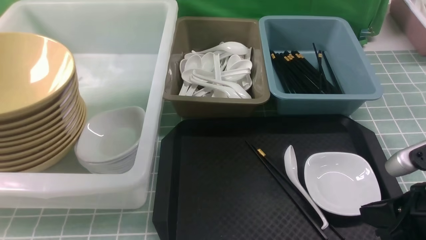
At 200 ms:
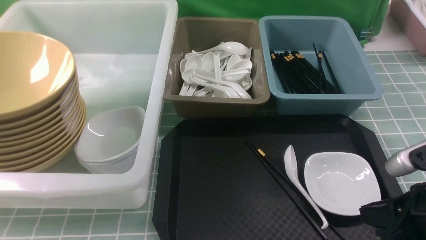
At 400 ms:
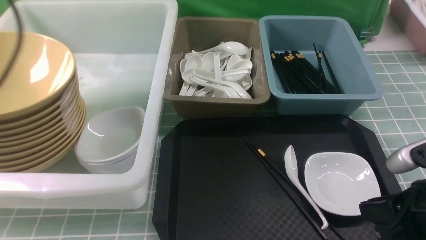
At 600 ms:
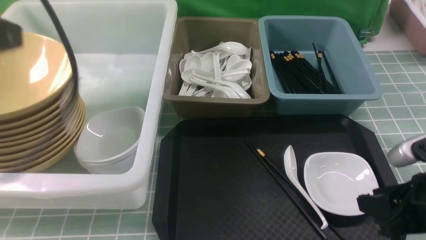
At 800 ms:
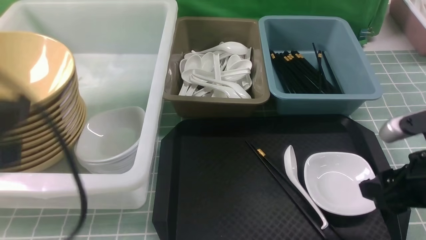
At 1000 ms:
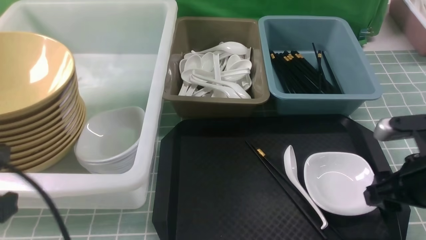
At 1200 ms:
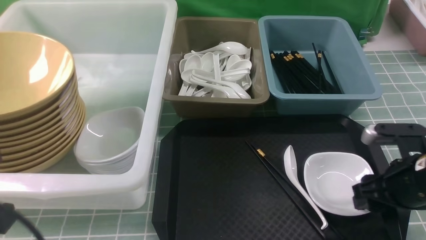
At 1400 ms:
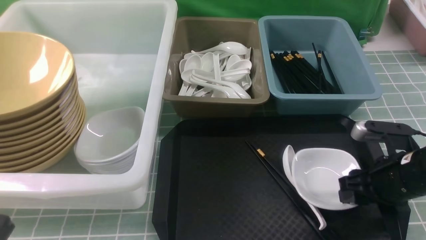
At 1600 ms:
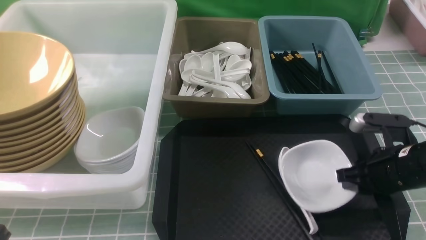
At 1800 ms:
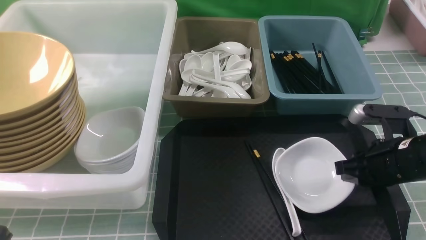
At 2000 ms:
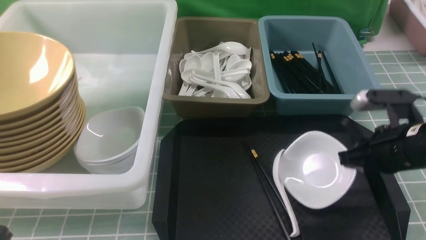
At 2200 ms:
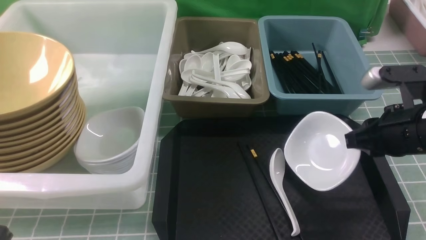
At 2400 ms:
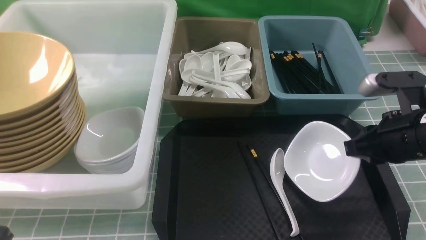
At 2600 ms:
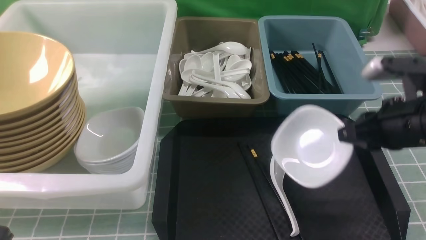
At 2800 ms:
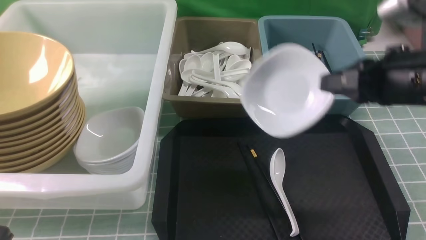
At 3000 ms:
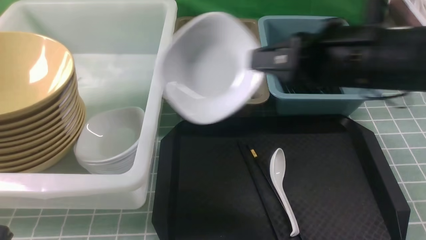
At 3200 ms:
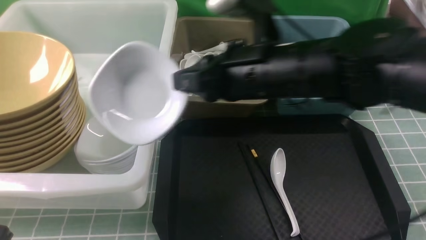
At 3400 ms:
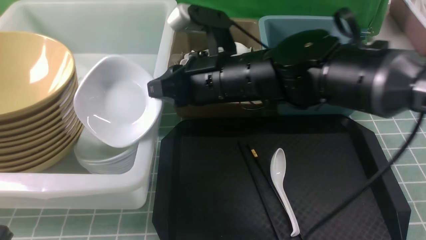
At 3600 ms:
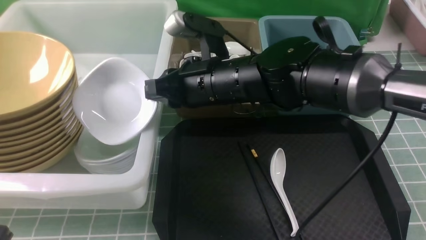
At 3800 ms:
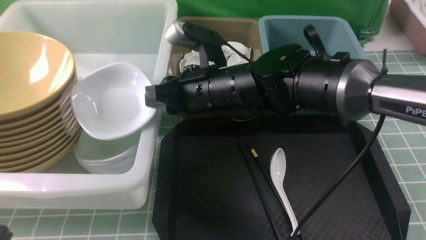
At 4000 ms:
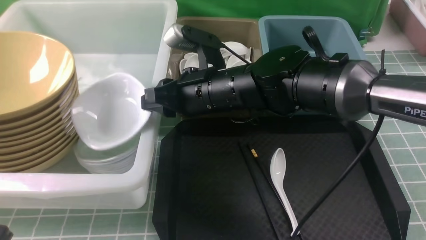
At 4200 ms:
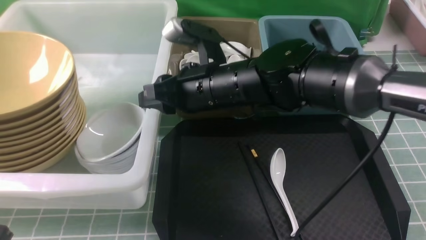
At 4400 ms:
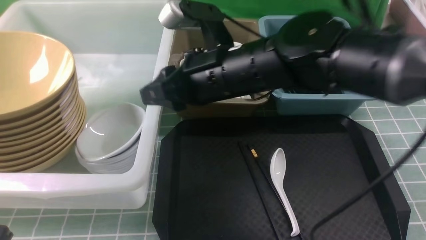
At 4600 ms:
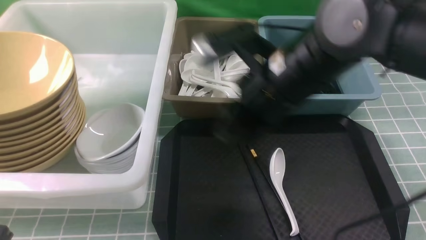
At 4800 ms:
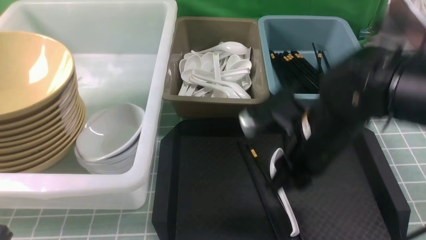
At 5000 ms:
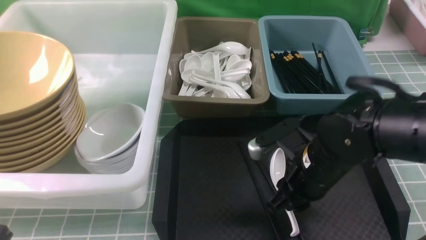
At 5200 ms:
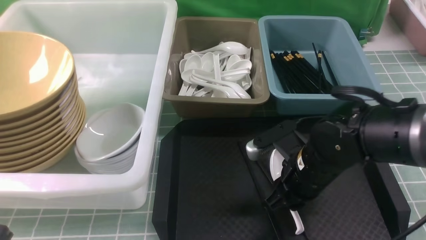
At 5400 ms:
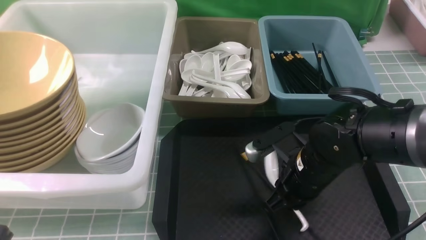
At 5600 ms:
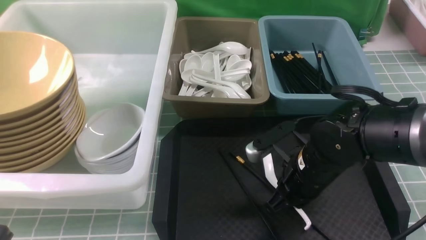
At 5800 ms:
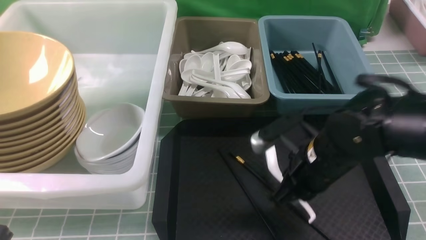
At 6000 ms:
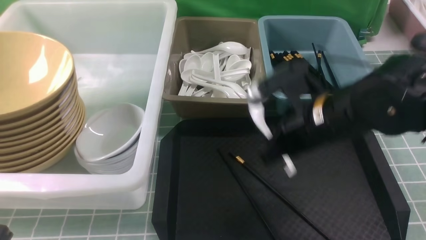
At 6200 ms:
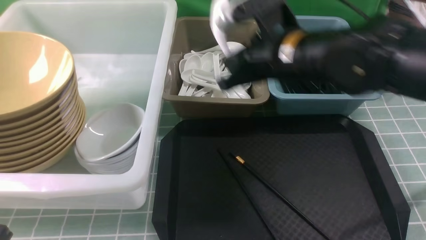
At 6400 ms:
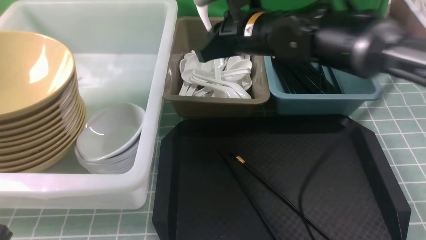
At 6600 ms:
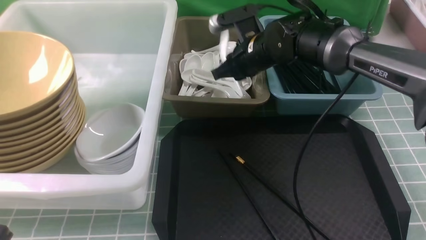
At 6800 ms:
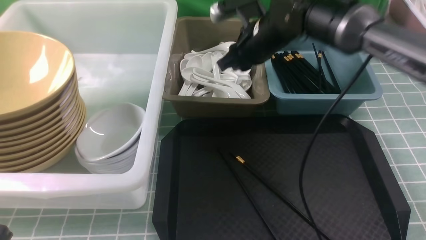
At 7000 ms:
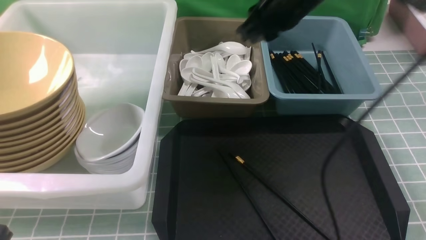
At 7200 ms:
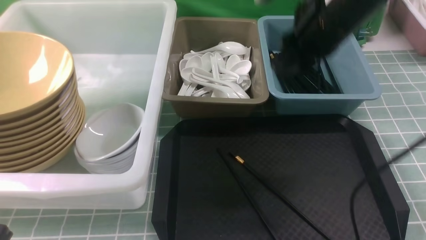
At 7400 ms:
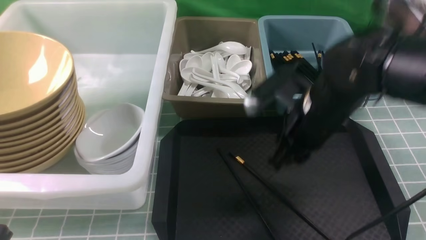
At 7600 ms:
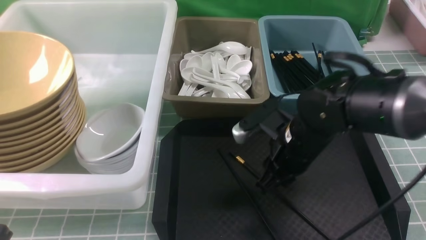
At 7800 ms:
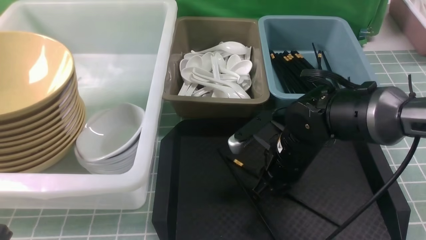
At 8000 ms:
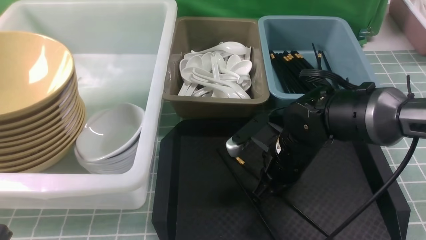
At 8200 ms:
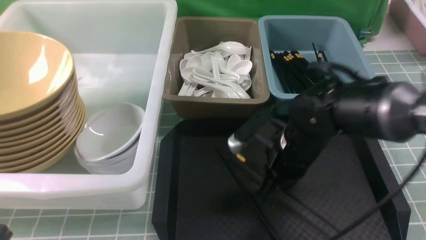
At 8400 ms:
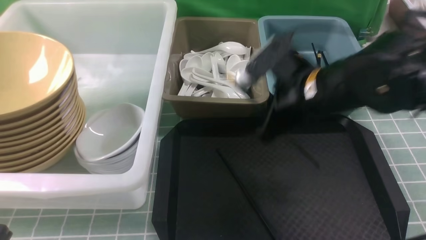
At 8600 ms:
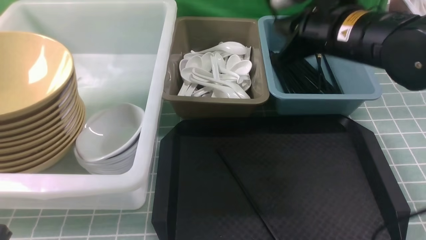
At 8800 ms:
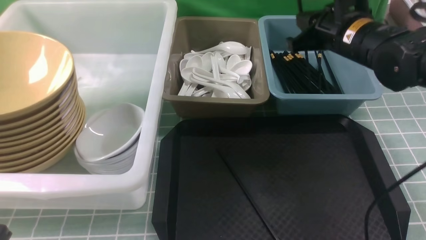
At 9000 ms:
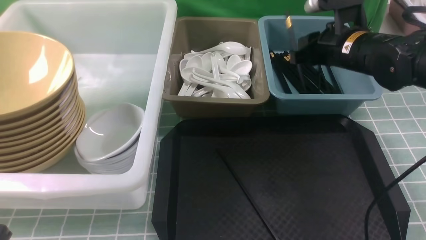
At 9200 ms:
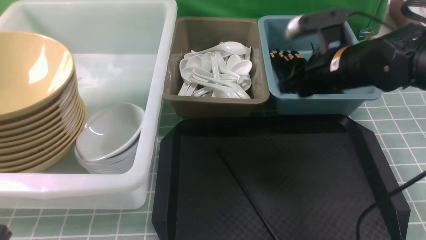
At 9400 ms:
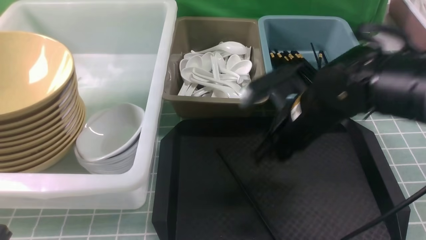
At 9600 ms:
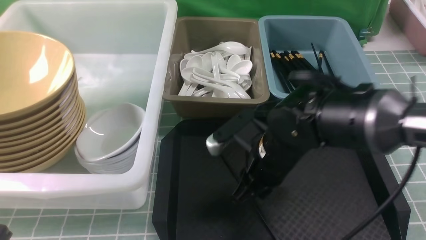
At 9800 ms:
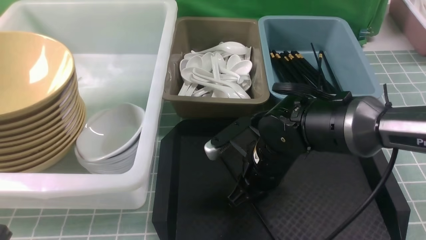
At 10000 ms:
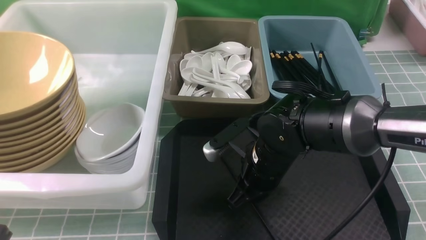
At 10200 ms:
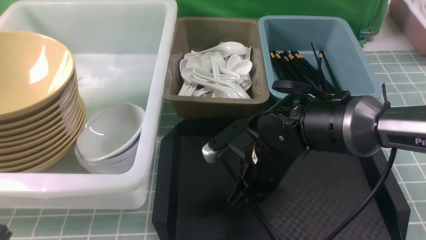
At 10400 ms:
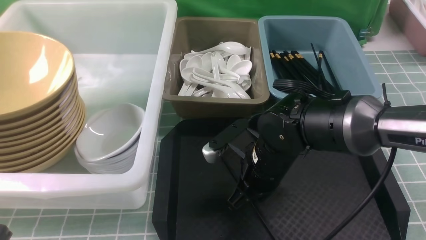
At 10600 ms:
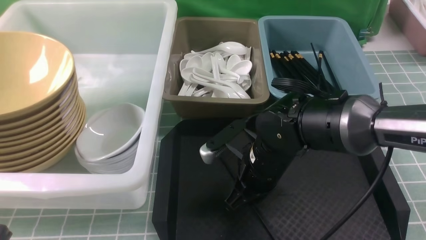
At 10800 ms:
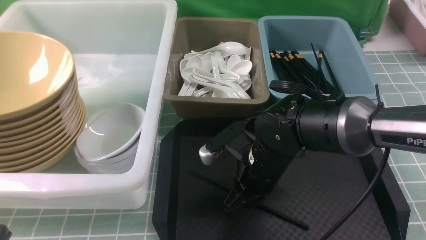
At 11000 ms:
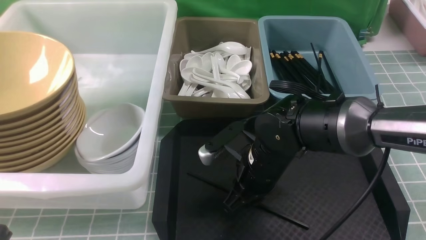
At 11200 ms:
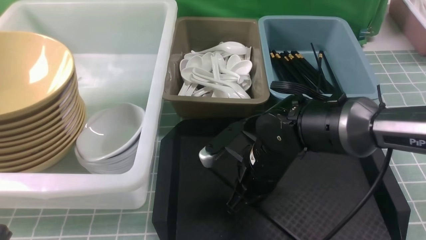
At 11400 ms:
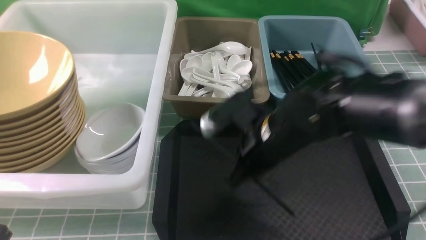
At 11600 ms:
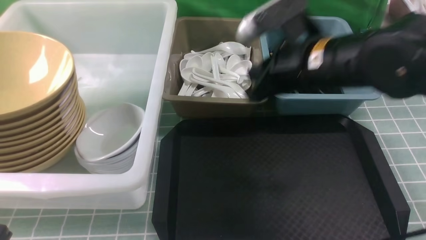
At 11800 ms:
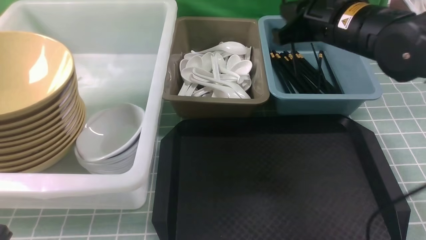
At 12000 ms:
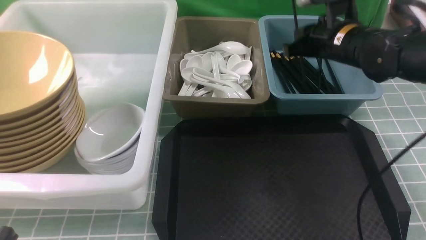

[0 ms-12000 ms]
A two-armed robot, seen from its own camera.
Task of the whole recording: on blue table put chopsticks spoon bowls plates into blue grey white boxes.
Step, 800 ms to 2000 ms: use the right arm to grab the plate.
Step, 2200 ms to 4400 ms: use the right arm to put the plate into the large storage box on the left.
Step, 4600 ms to 5600 ms: use the right arm to grab the soup spoon in the middle.
Step, 5800 ms to 6800 ms: use the right arm to put the soup spoon into the small storage box in the middle.
Step, 7000 ms to 8200 ms: use the right arm to grab a chopstick.
Step, 8400 ms to 9000 ms: use the right arm to put a chopstick into the small storage box on the right.
Step, 9200 ms to 11400 ms: use the right arm to grab a chopstick.
0 ms to 1600 ms: The right gripper shifts some 10 cm forward, and opens; the left gripper goes about 25 cm backward, downward and to the right, and closes up.
1600 ms to 3000 ms: The right gripper heads upward and to the left, covering approximately 20 cm, and closes its fingers.
3000 ms to 4400 ms: The right gripper heads to the left, covering about 15 cm, and opens up.
4400 ms to 6000 ms: The right gripper is displaced to the right and downward by about 10 cm, and closes up.
6000 ms to 7600 ms: The right gripper reaches about 15 cm forward, then returns, and opens up.
7600 ms to 9000 ms: The right gripper heads forward, to the right and upward, covering roughly 15 cm.
9000 ms to 10400 ms: The right gripper shifts about 20 cm to the left, backward and downward, and closes its fingers.
10400 ms to 12000 ms: The right gripper is displaced upward, forward and to the right by roughly 20 cm.

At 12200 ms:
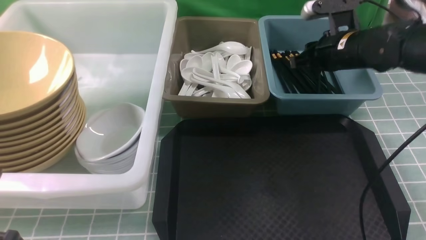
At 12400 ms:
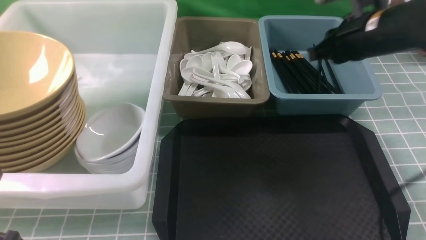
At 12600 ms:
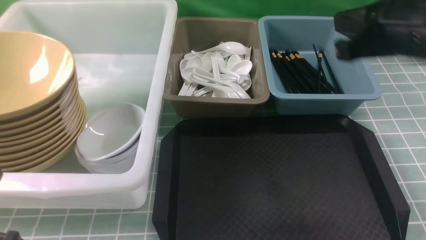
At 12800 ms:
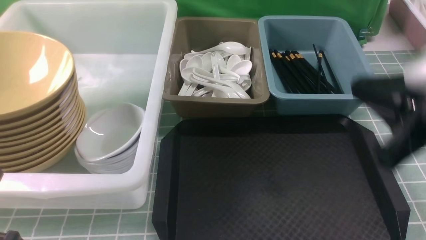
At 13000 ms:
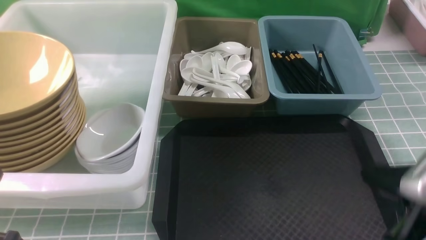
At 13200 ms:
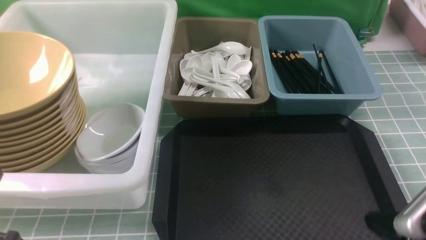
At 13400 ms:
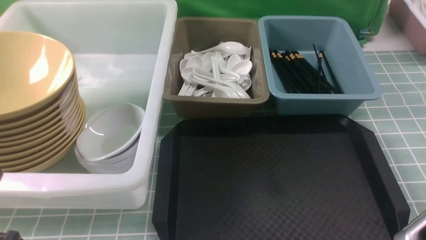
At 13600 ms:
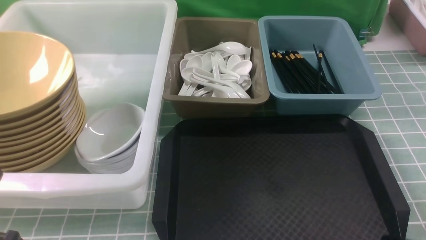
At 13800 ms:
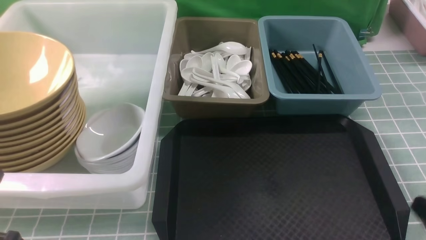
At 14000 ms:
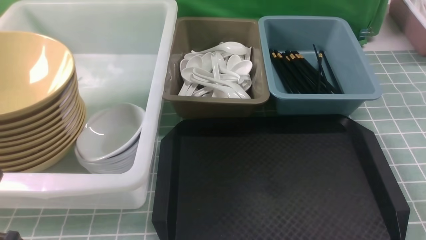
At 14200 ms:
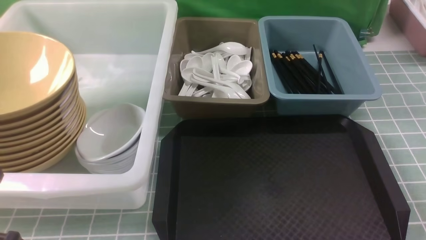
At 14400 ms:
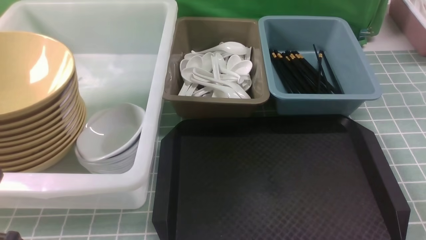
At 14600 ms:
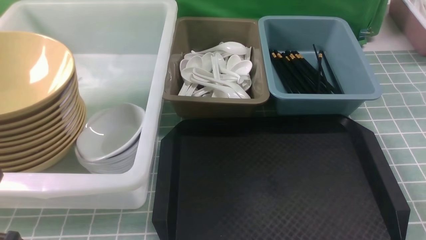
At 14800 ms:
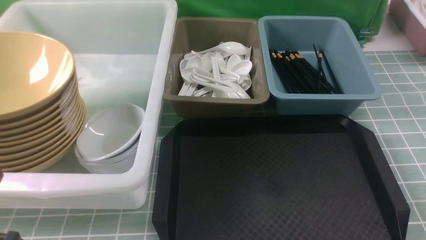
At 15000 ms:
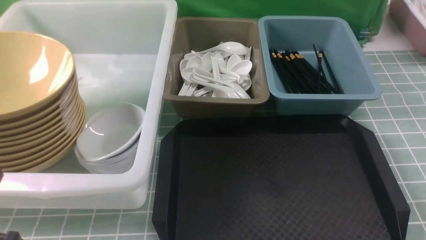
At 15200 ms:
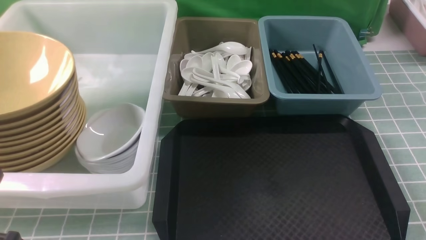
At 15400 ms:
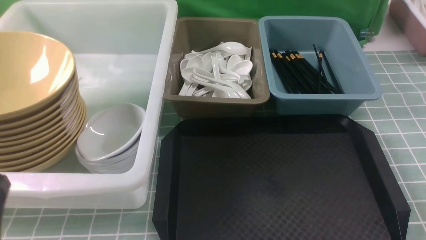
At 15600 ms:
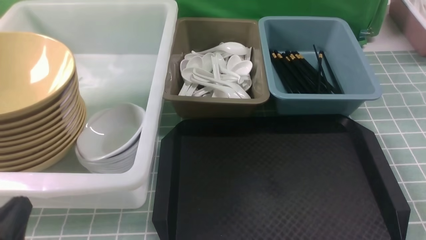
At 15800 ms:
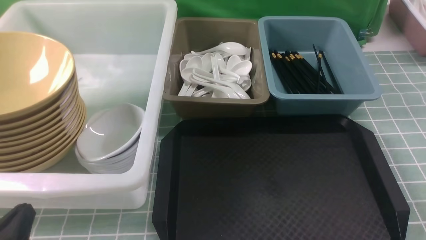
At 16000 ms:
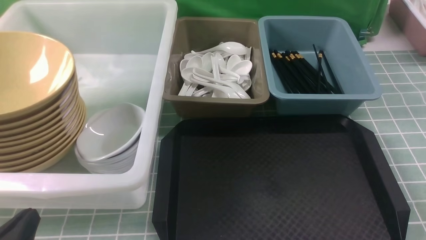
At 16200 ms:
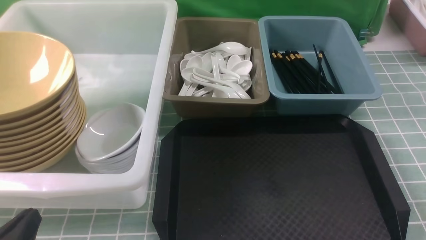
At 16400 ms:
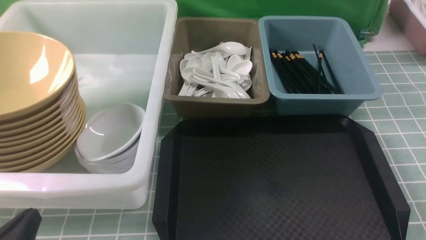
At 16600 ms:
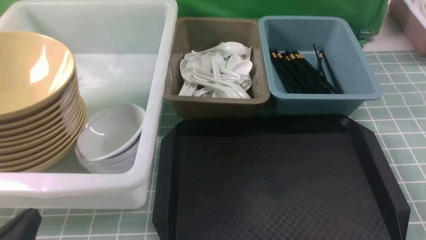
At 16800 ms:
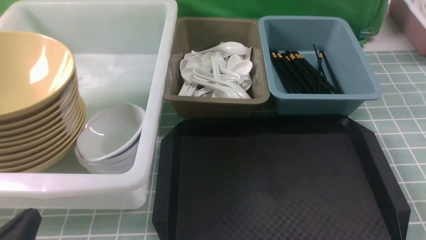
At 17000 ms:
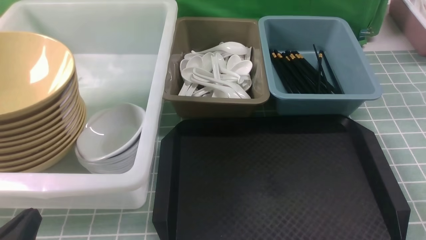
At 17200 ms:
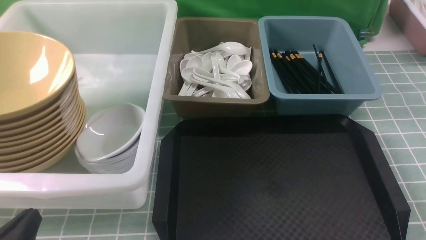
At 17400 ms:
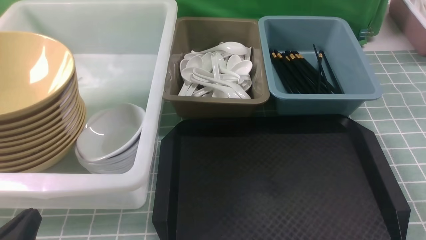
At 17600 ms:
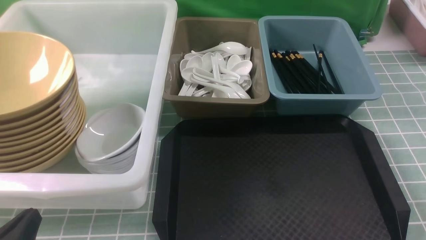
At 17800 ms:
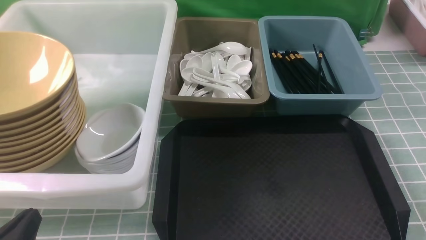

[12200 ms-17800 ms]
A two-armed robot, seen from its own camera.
Task of the whole recording: on blue table put chopsticks spoon bowls plates into blue grey white boxes.
12200 ms to 13600 ms: The right gripper is displaced backward by approximately 30 cm, and closes its fingers.
15000 ms to 16400 ms: The left gripper is displaced downward by roughly 10 cm.
16400 ms to 17800 ms: Neither gripper changes place.
